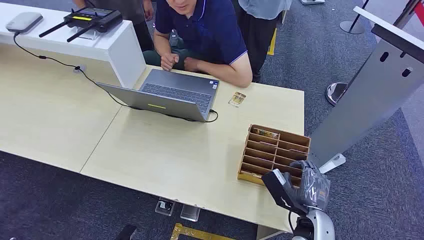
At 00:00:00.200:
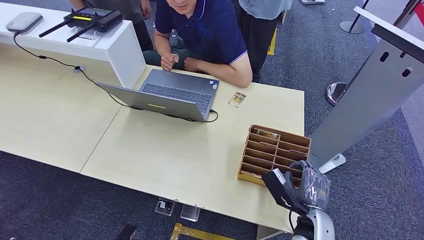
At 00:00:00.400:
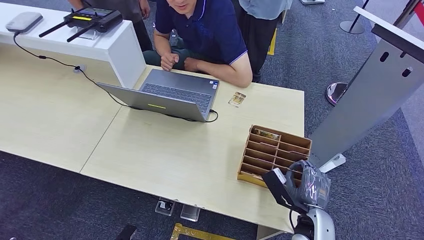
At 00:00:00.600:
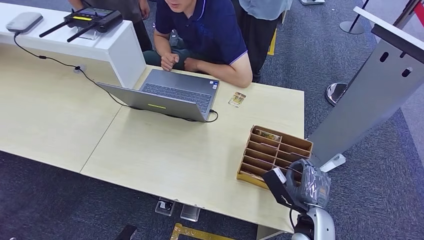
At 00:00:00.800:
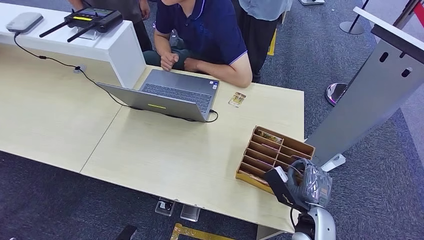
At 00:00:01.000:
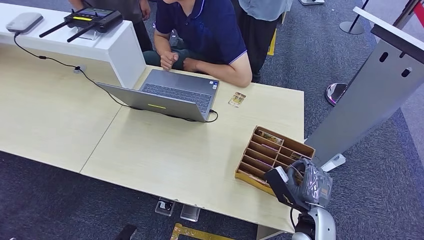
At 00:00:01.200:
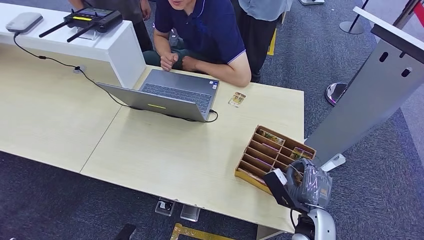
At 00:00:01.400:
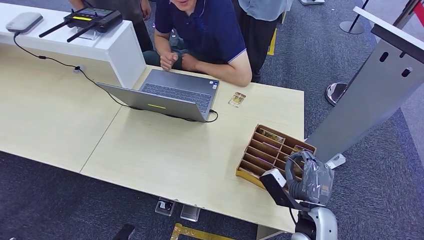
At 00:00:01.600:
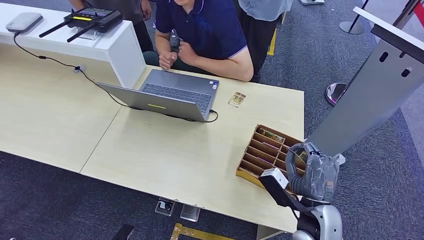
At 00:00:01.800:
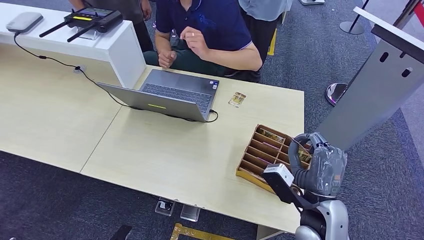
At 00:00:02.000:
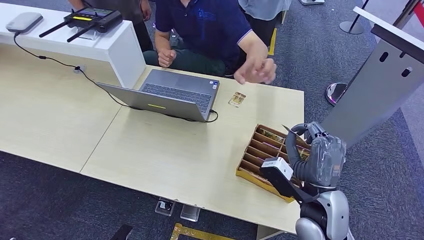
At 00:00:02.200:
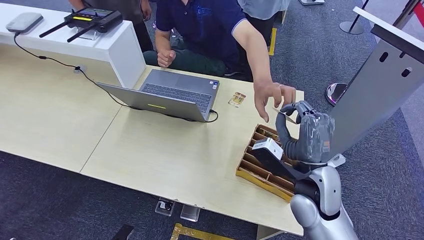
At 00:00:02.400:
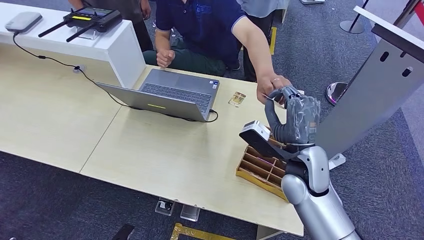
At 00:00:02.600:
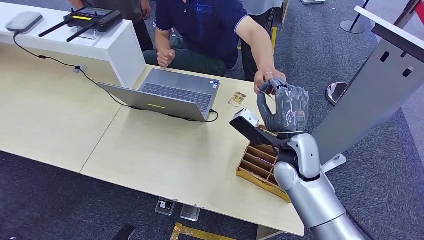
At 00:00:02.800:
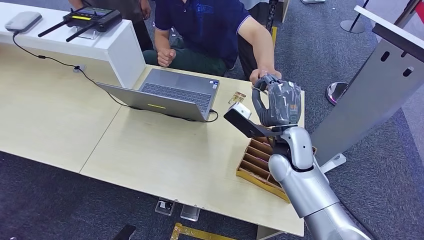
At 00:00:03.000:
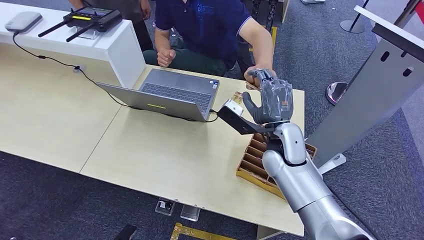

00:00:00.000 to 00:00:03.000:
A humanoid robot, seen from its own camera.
Step, 00:00:00.000 to 00:00:01.800: Pick up the key card from the card box.
Step, 00:00:02.000 to 00:00:03.000: Hand the key card to the target.
00:00:01.600 to 00:00:03.000: The right hand is displaced forward, to the left and upward by some 20 cm.
